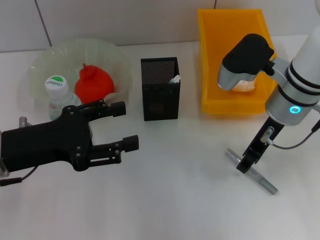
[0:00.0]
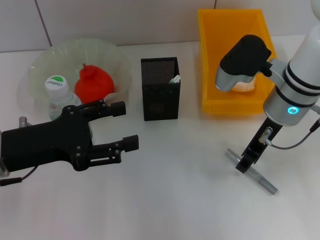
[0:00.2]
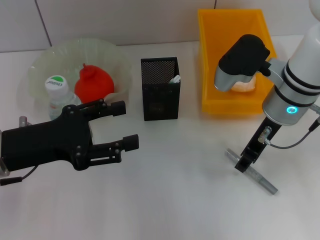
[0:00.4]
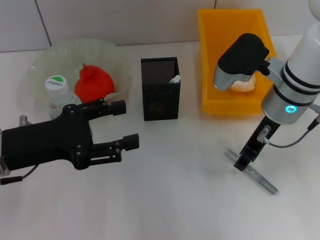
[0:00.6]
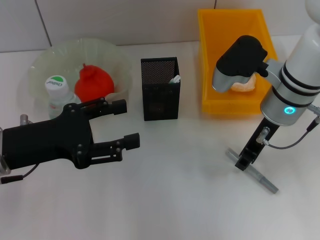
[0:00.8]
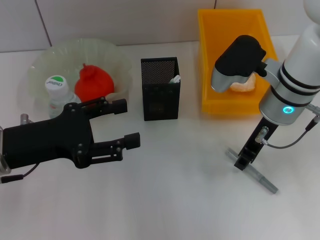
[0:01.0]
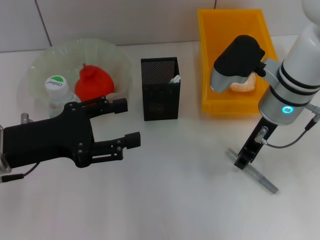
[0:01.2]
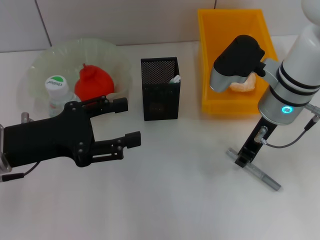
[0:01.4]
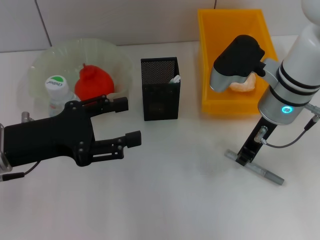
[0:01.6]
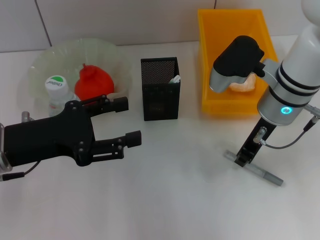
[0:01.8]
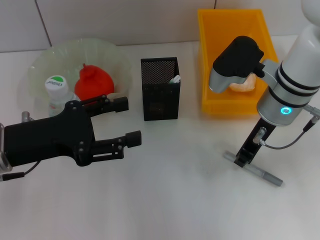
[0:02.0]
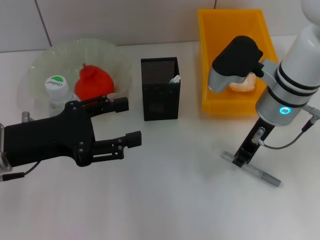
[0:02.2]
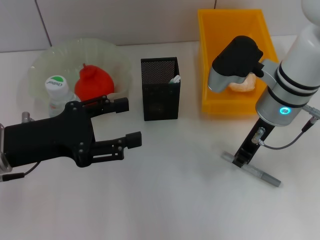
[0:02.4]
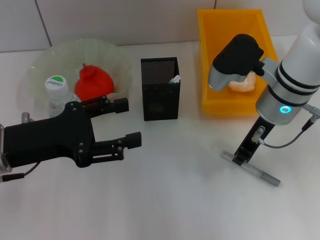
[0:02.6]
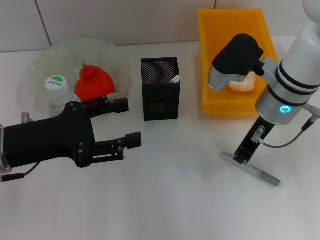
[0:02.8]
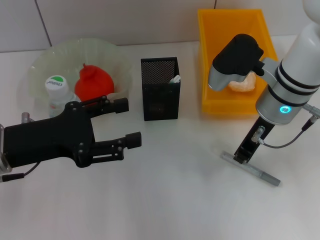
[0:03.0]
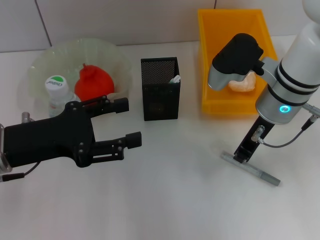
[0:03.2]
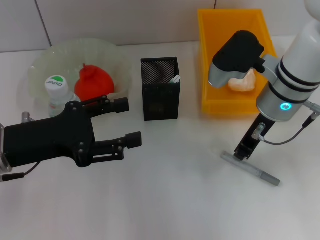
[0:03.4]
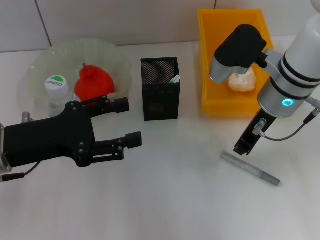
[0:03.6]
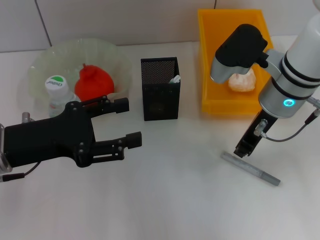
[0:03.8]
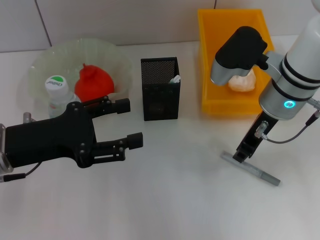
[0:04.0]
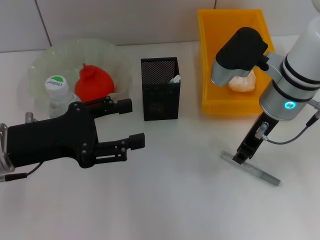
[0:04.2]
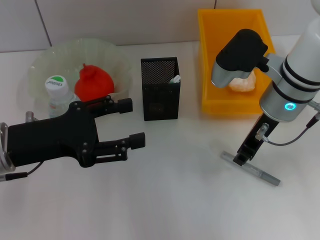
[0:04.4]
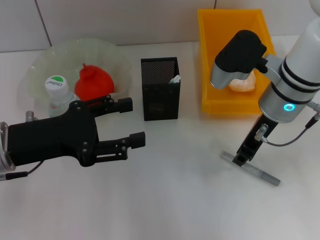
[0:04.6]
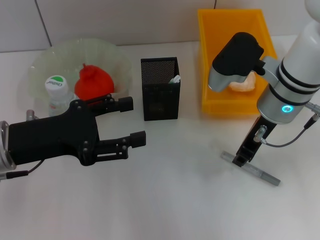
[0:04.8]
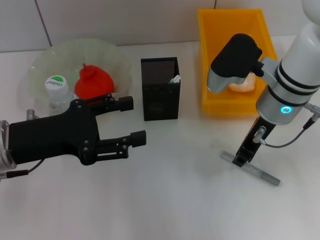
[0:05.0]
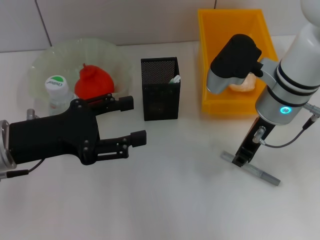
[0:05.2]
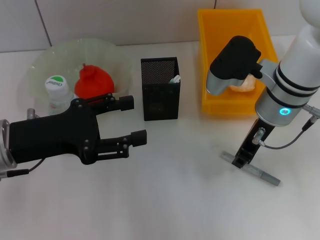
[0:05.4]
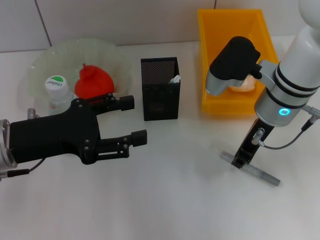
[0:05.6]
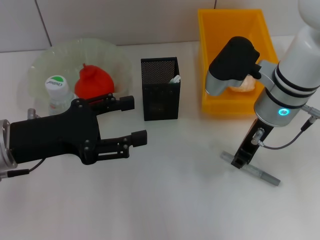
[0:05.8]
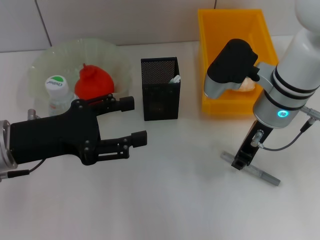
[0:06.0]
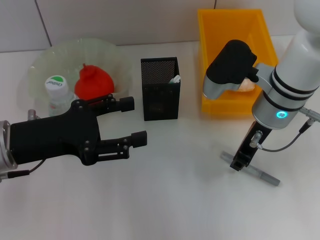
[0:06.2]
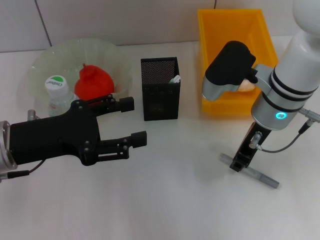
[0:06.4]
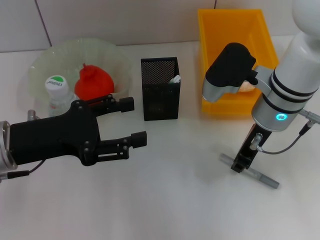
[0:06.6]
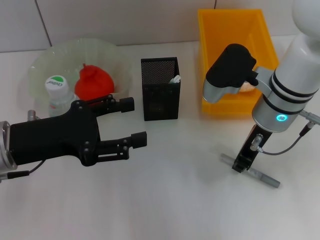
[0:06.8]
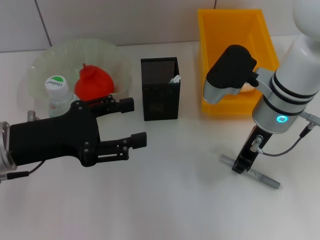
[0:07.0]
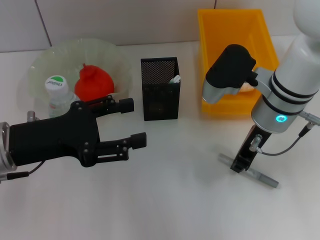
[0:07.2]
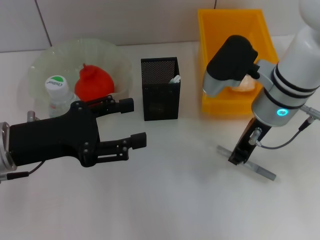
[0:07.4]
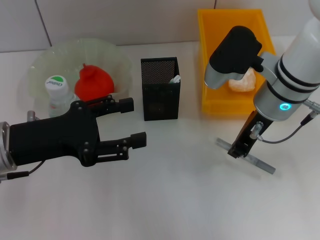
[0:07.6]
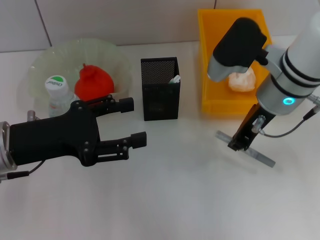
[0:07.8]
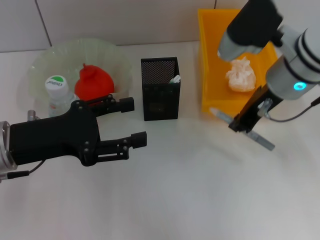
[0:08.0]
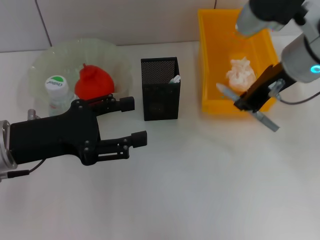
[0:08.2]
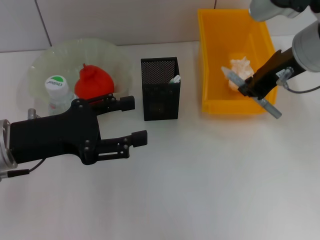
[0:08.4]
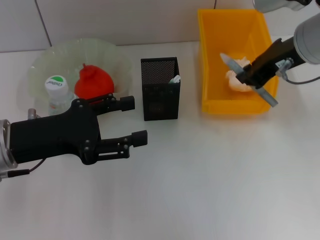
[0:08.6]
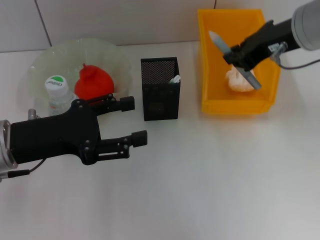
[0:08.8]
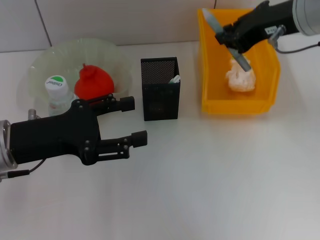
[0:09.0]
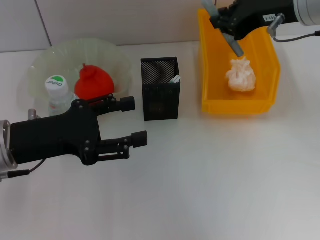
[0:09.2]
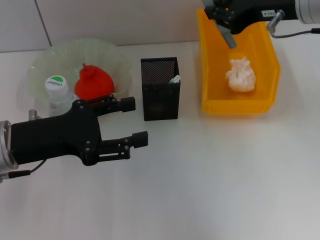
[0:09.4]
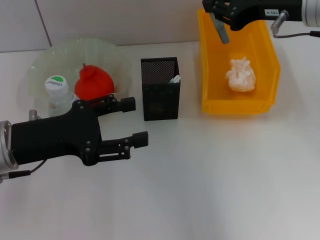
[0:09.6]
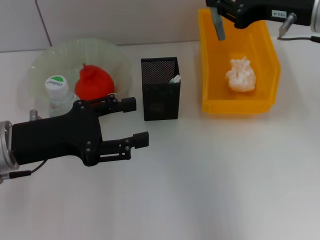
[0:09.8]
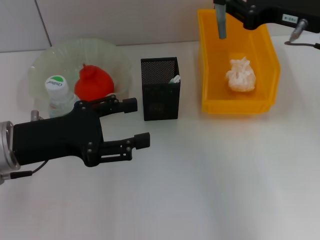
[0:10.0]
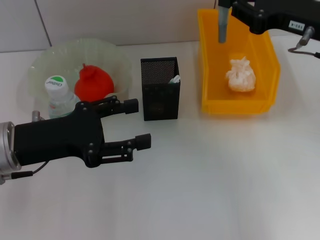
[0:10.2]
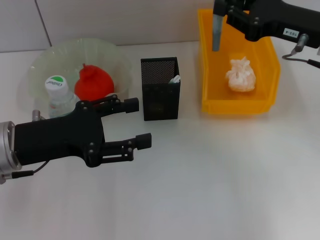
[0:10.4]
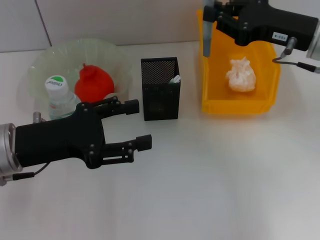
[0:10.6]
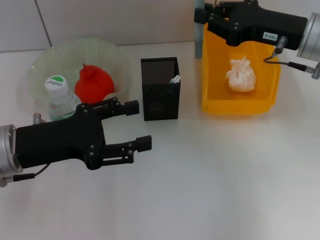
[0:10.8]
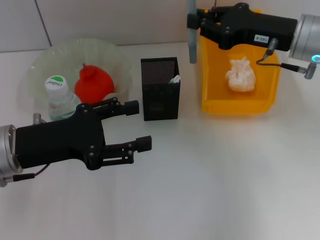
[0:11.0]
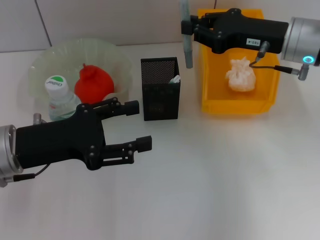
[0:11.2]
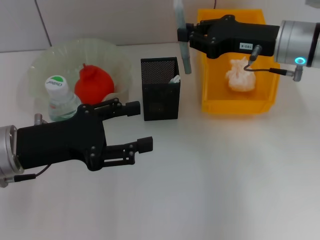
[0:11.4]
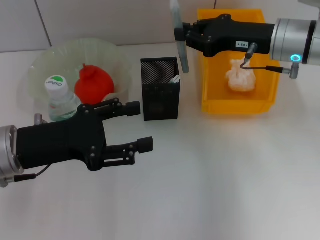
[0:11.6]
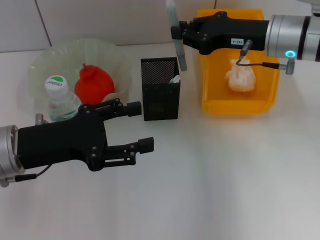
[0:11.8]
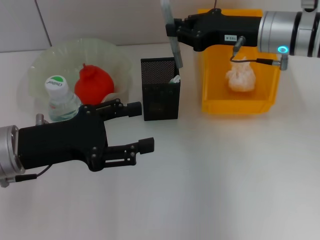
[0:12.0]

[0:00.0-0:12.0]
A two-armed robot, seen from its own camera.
Step, 0:00.0 to 0:06.2: Grab the gray glue with the right hand.
0:00.0 to 0:01.6: The right gripper closes.
0:01.6 to 0:03.0: The two grippers keep their place.
0:03.0 to 0:06.0: Both grippers stay about where they are.
0:06.0 to 0:07.6: The grippers move only a little.
0:07.6 to 0:09.0: The right gripper heads upward, covering approximately 10 cm.
0:09.0 to 0:10.4: The right gripper moves downward and to the right, some 10 cm.
0:10.4 to 0:12.0: The right gripper moves forward and to the left, some 10 cm.

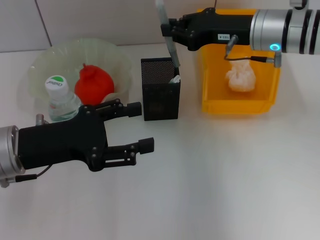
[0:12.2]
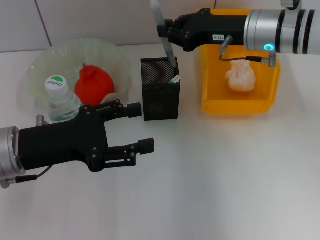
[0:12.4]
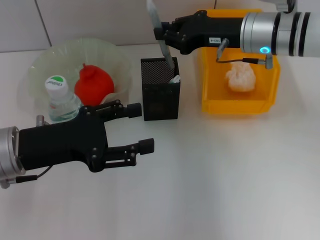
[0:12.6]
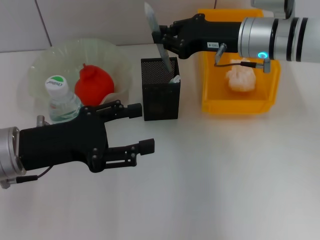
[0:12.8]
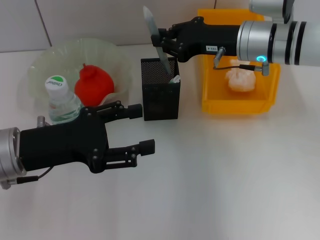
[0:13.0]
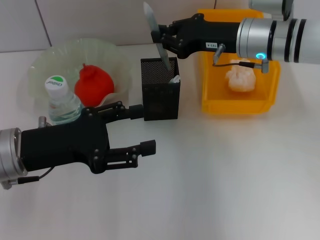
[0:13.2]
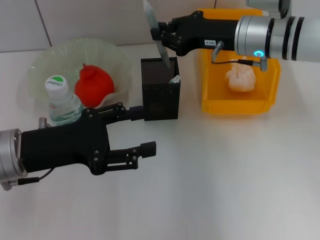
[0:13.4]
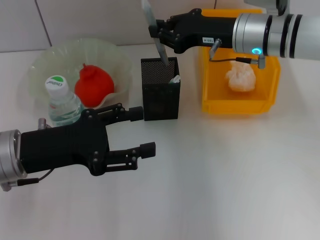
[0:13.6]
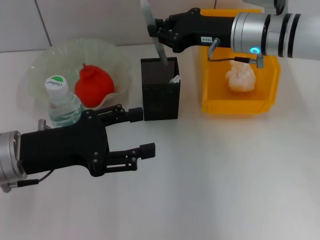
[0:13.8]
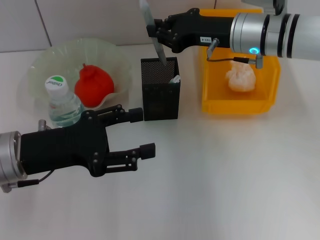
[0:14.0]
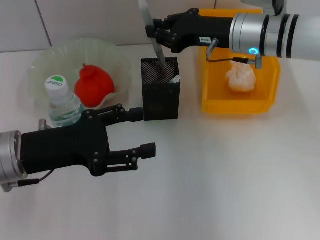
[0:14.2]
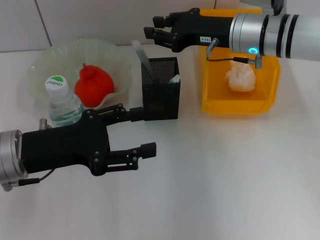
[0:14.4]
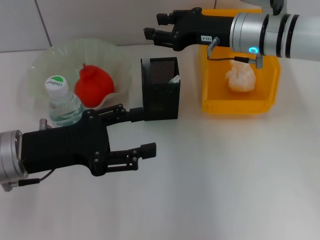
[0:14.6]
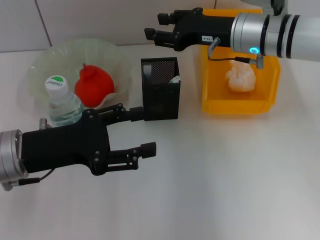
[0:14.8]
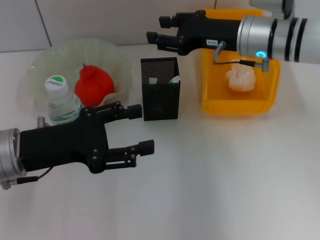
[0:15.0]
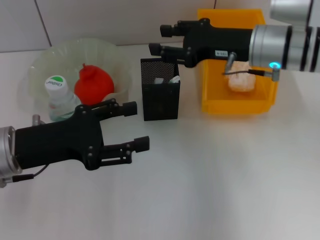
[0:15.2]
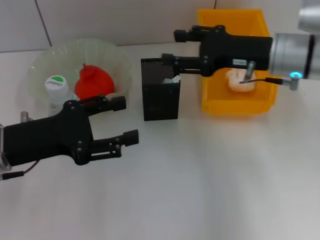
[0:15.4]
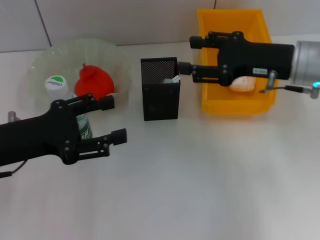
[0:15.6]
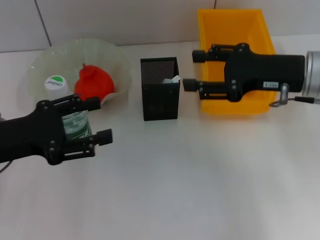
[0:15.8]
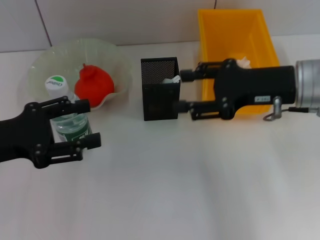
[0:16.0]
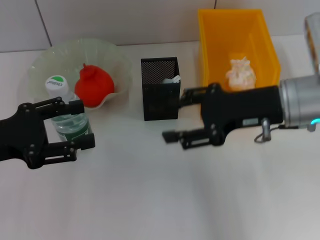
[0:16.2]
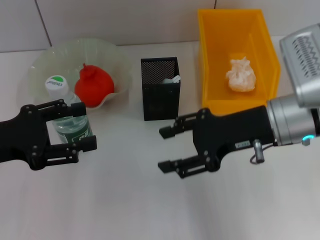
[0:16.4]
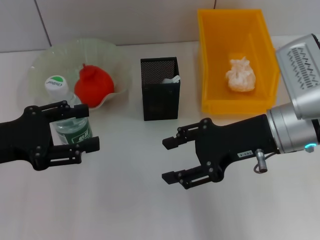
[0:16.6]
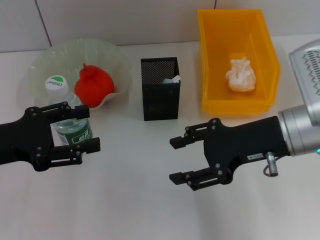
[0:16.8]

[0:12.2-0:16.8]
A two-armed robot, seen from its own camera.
Step, 0:12.2 to 0:15.0: Place the gray glue into the pen holder with the right hand.
0:12.2 to 0:13.8: The grippers make only small movements.
0:13.8 to 0:15.2: The right gripper opens up.
0:15.2 to 0:16.8: The left gripper heads to the left, covering roughly 5 cm. Meanwhile the right gripper travels backward by roughly 10 cm.
